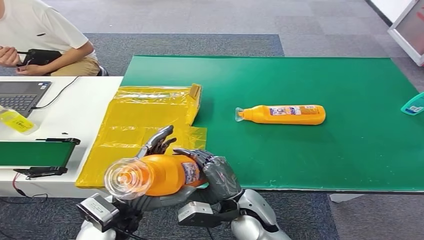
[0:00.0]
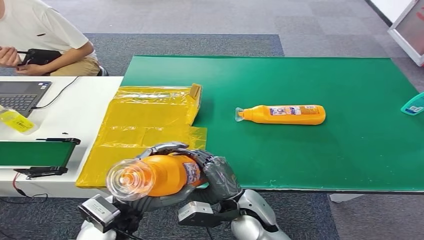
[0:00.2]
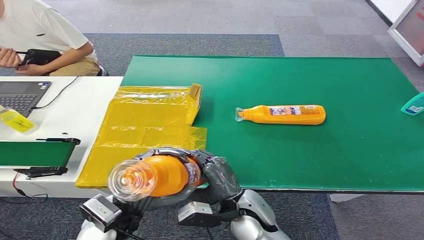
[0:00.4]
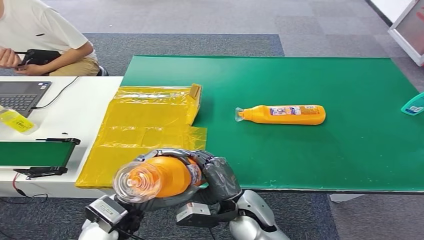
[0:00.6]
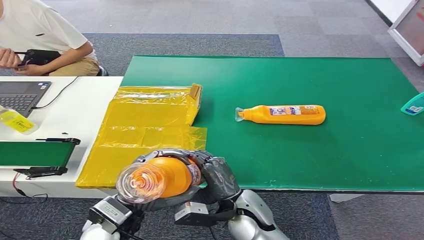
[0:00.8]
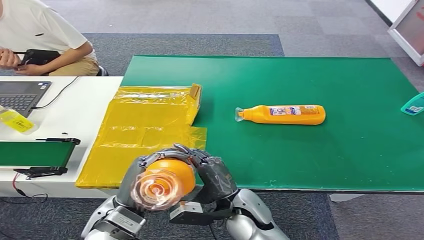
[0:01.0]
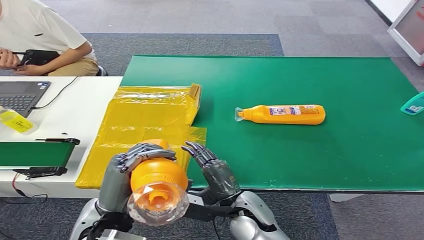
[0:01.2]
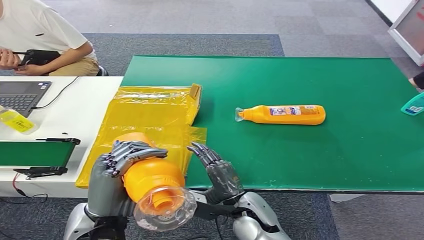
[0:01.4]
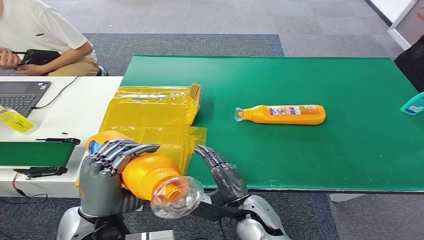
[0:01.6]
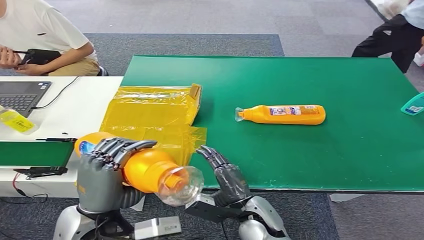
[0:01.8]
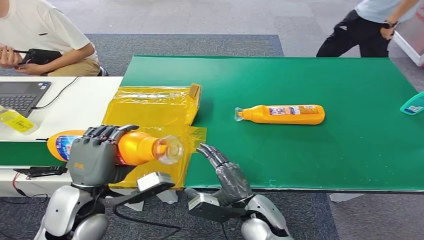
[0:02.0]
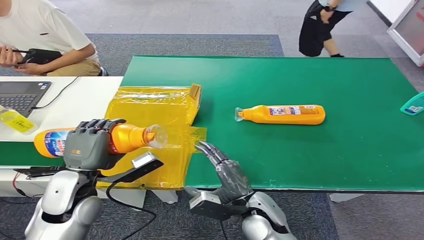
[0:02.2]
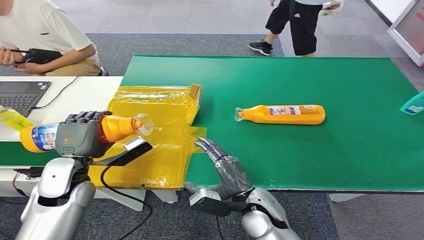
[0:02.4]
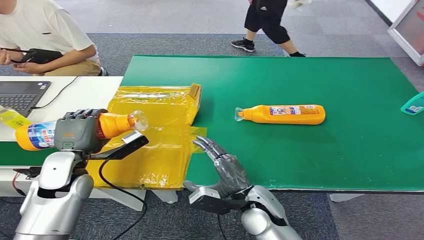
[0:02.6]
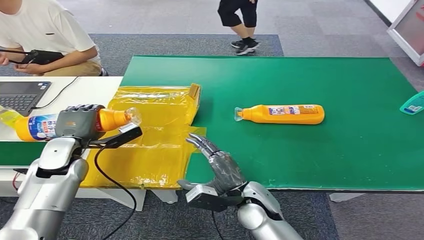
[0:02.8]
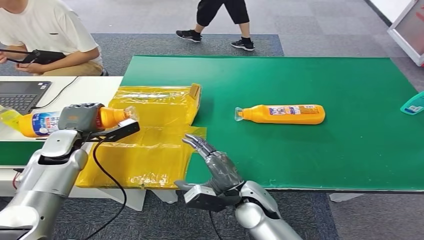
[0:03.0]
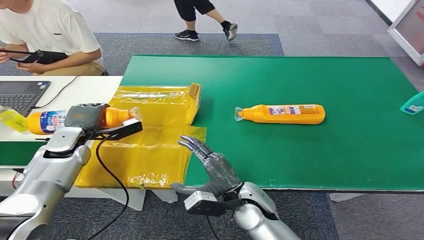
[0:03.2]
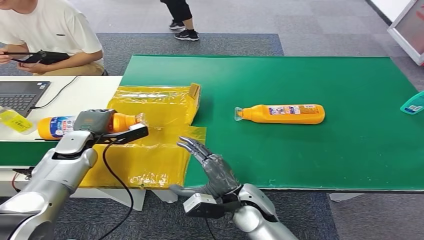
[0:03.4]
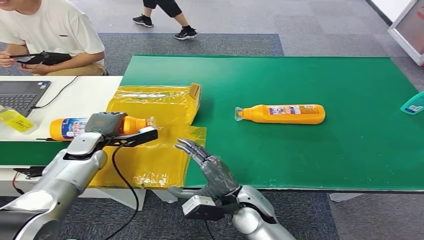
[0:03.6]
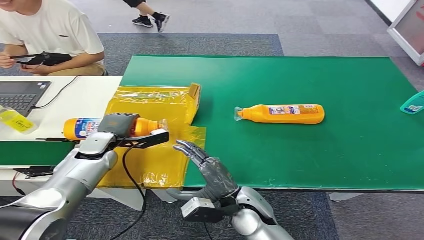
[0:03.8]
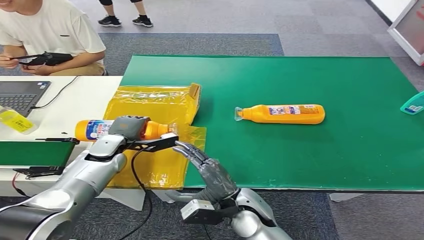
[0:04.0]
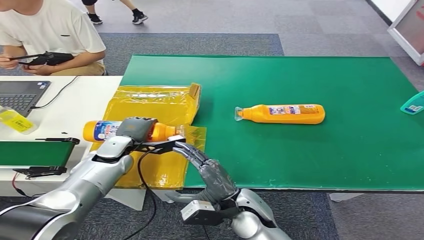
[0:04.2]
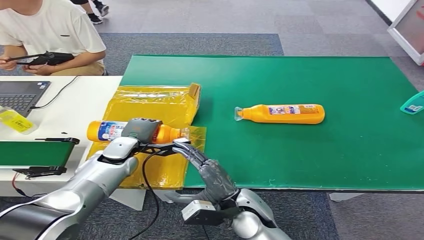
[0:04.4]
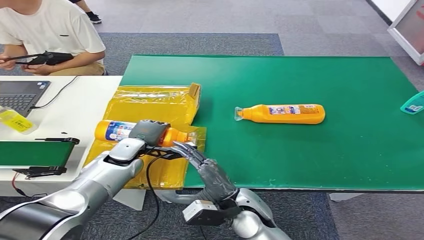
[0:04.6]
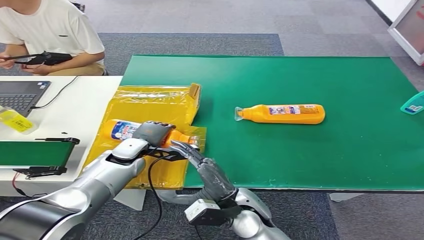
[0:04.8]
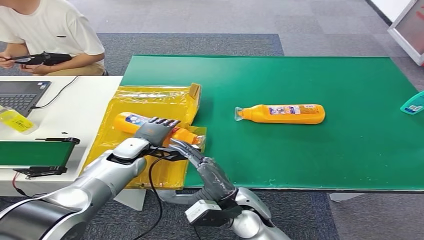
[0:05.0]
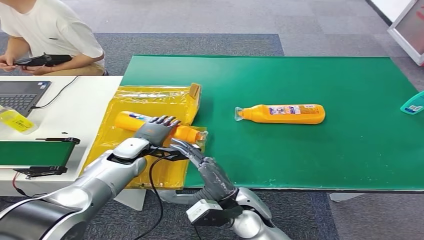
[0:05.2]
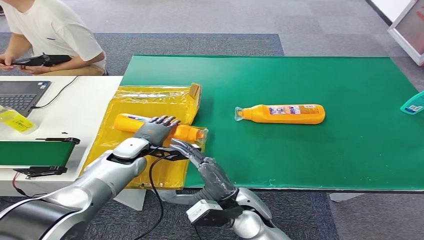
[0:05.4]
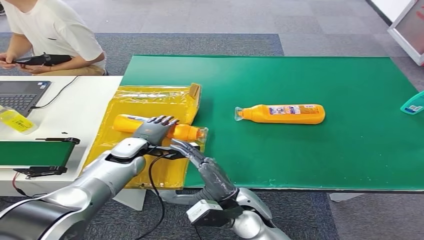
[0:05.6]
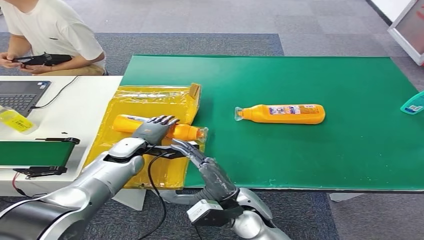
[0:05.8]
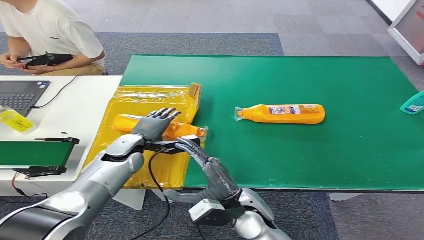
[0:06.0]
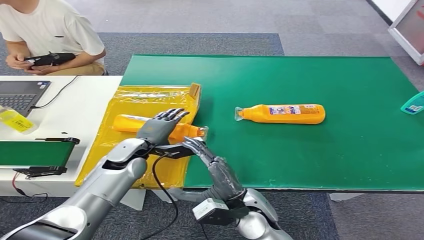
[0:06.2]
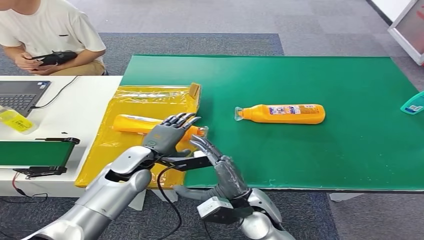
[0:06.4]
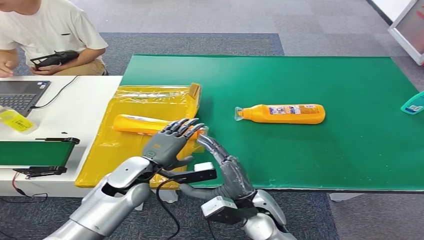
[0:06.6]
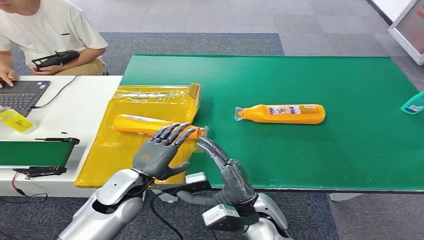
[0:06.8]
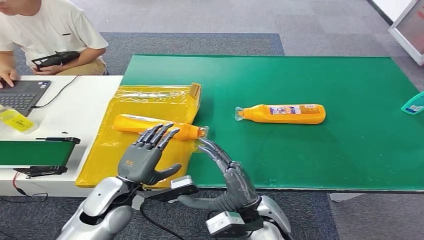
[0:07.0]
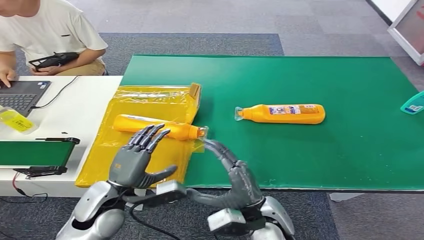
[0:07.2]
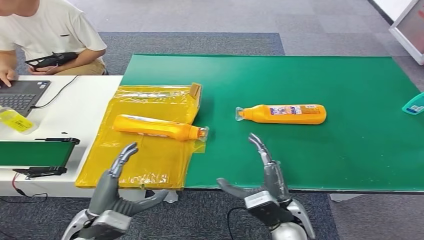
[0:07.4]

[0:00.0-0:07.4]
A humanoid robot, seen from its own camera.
Step, 0:00.0 to 0:07.4: Turn the bottle to the front side.
0:04.4 to 0:06.0: The hands make only small movements.
0:06.0 to 0:07.4: The right hand is displaced to the right by roughly 10 cm; the left hand moves backward, roughly 20 cm.

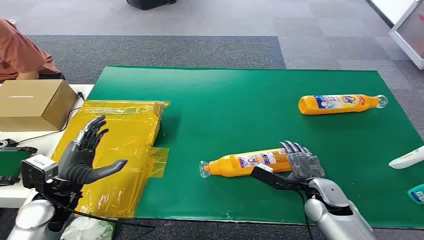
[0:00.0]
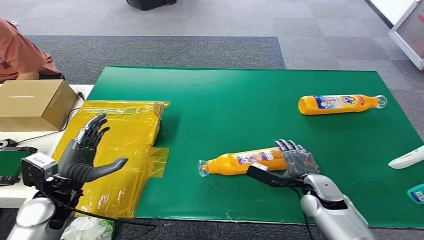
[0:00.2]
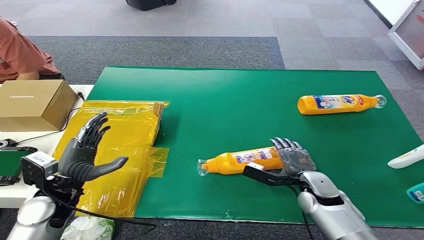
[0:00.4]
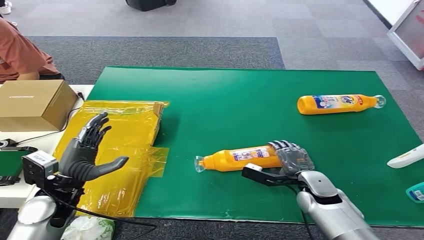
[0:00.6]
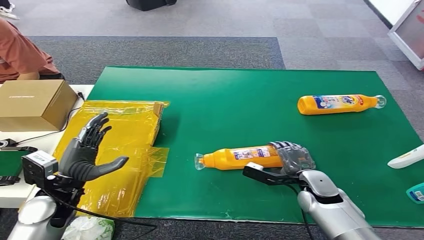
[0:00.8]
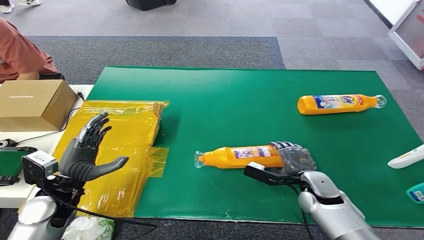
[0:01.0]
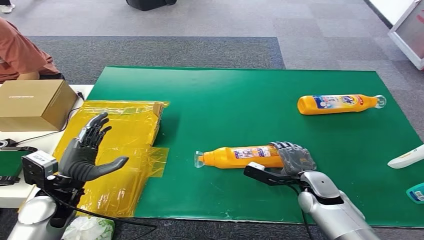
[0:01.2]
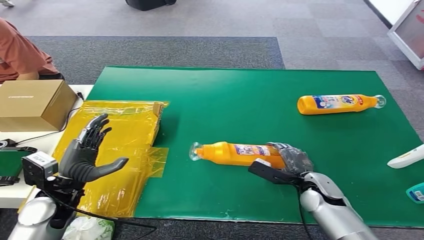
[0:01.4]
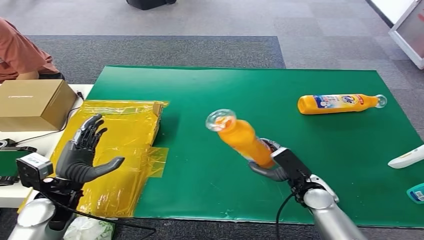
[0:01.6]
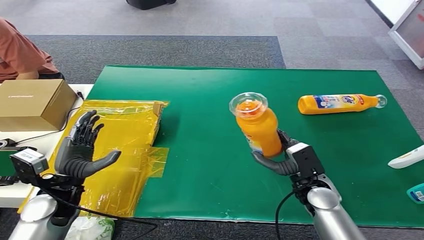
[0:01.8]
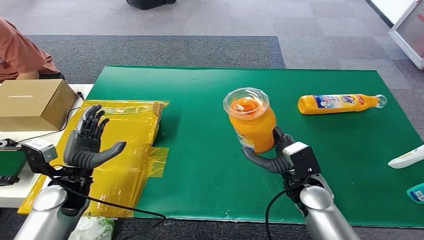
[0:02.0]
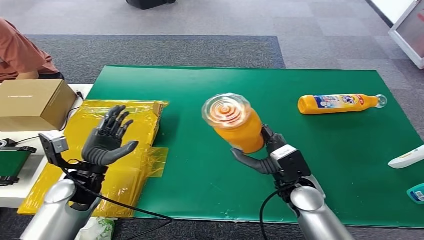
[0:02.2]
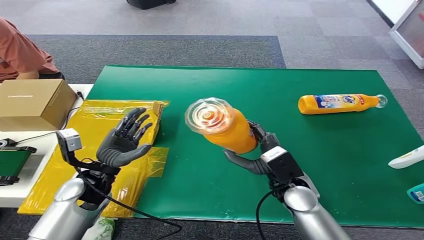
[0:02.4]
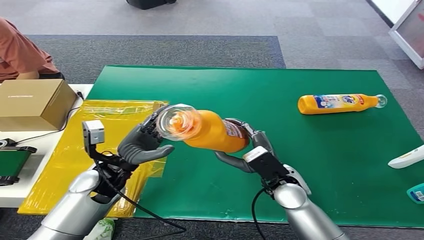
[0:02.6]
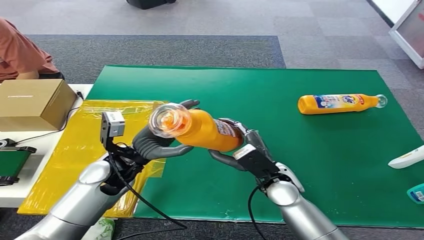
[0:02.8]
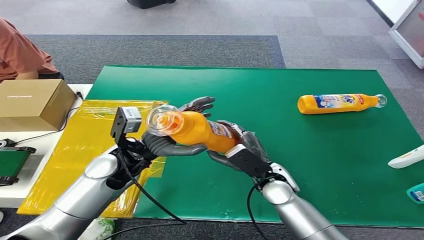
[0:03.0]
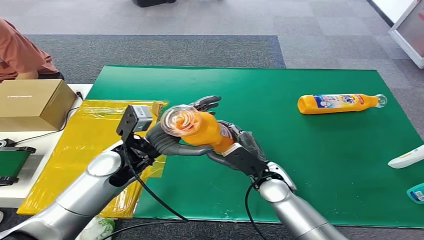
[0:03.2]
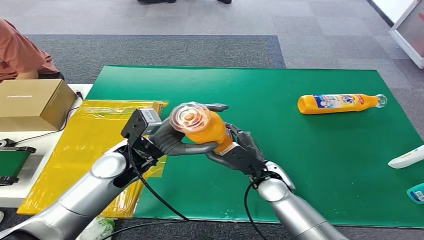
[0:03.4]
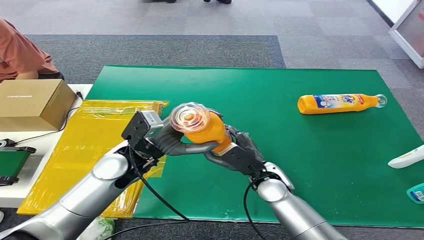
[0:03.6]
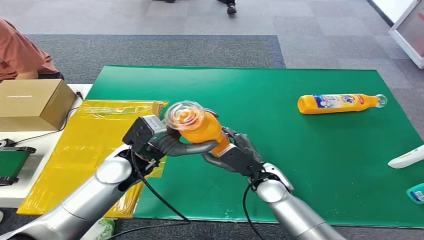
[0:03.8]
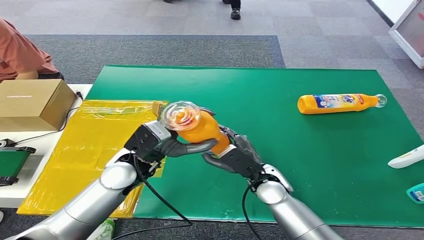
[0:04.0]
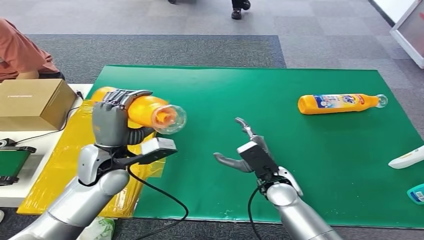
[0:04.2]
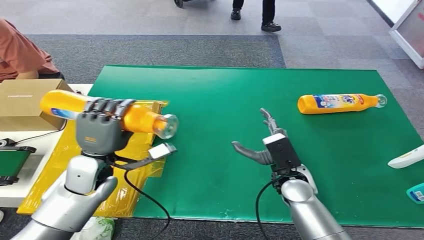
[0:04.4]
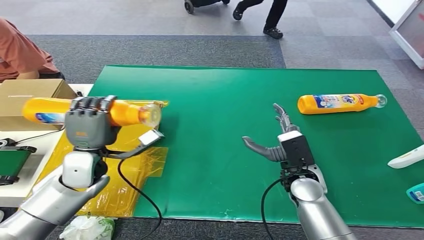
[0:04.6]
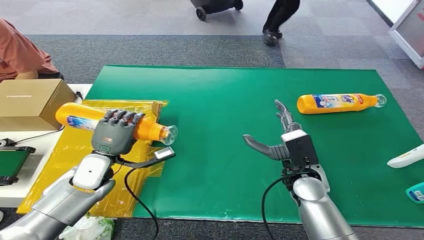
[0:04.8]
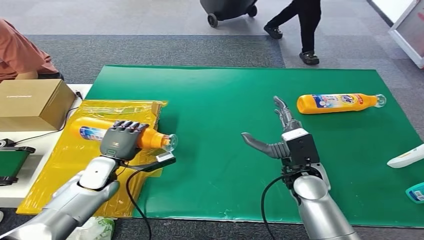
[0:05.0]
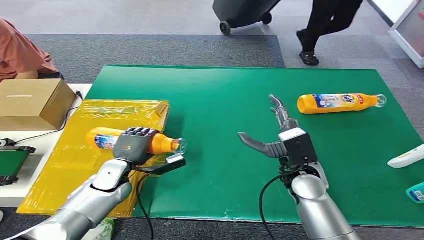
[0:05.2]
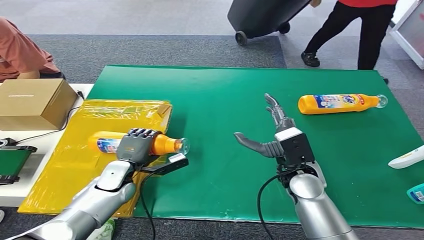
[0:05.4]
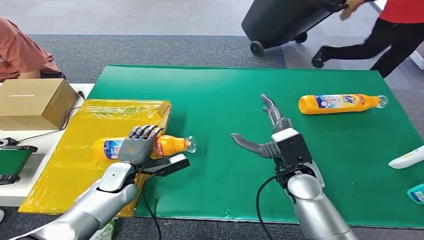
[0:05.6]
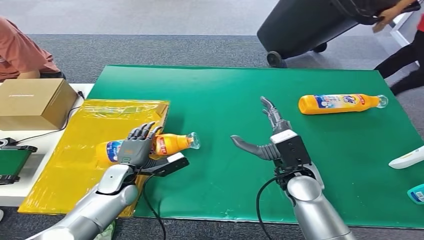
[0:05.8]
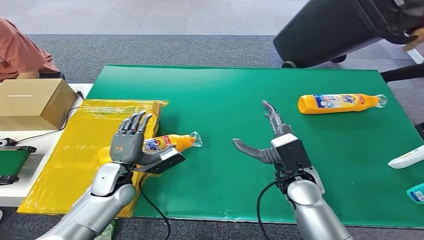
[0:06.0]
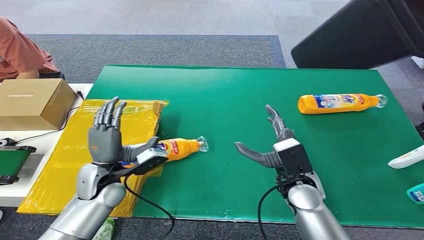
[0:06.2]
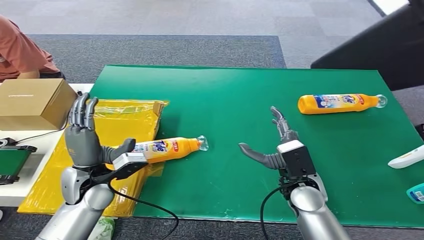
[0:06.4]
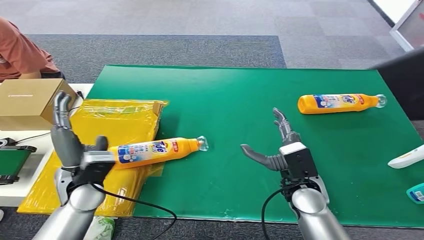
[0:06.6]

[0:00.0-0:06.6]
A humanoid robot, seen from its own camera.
Step, 0:00.0 to 0:02.2: Pick up the bottle from the table.
Step, 0:02.4 to 0:06.6: Turn the bottle to the front side.
